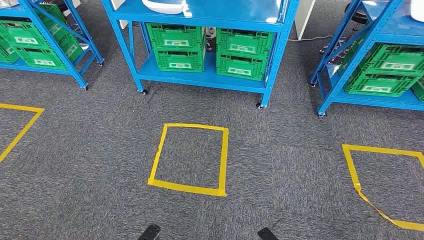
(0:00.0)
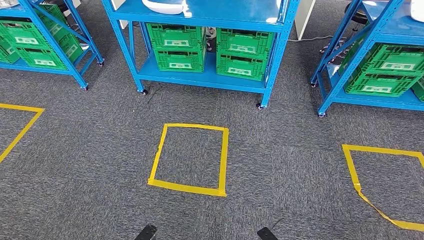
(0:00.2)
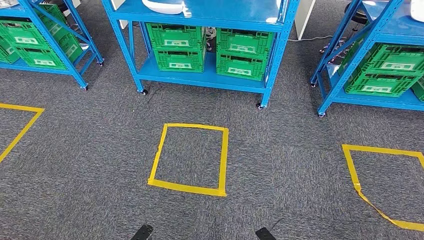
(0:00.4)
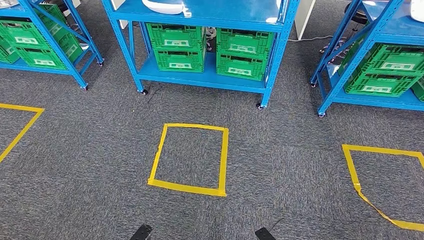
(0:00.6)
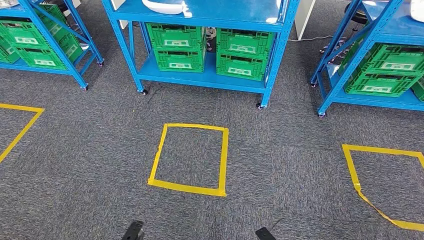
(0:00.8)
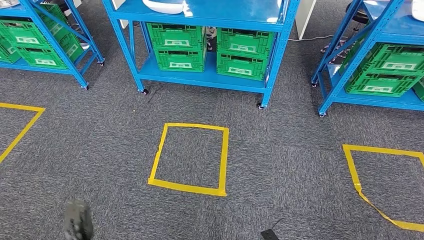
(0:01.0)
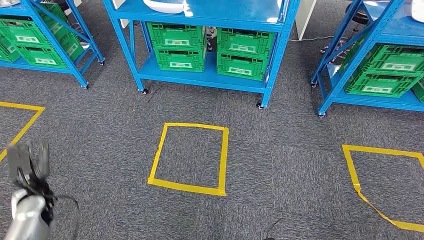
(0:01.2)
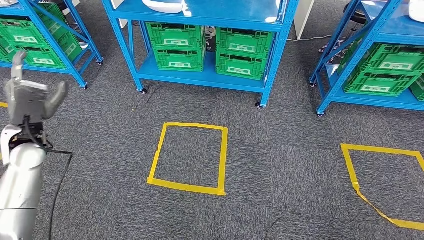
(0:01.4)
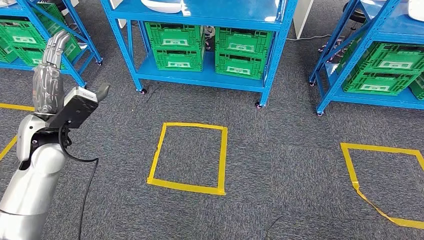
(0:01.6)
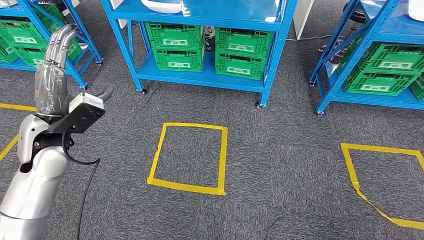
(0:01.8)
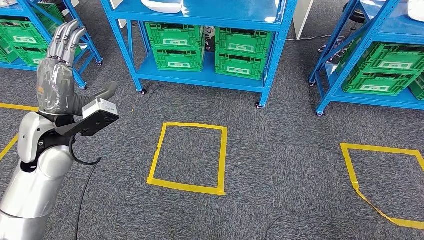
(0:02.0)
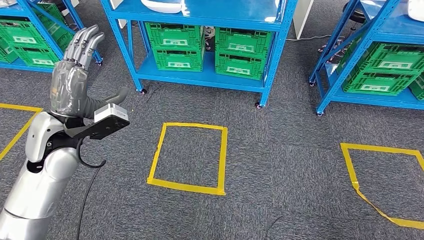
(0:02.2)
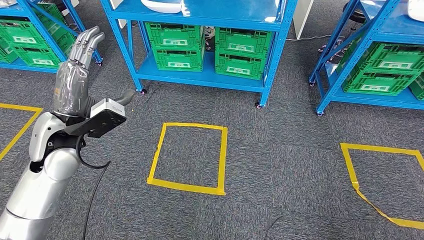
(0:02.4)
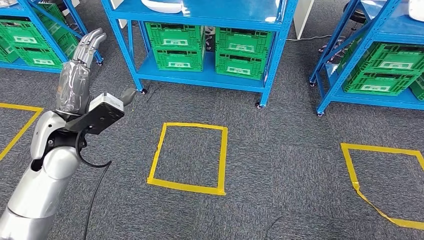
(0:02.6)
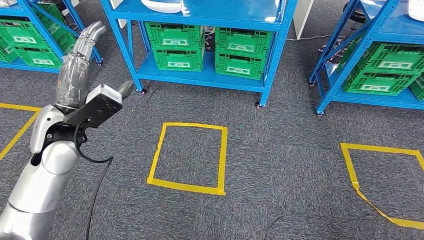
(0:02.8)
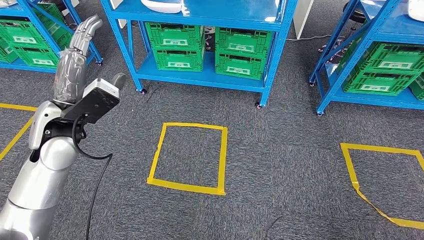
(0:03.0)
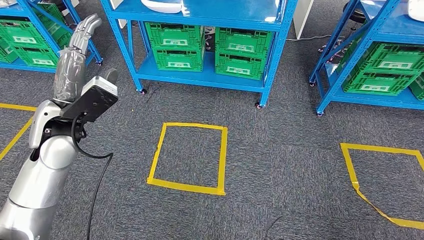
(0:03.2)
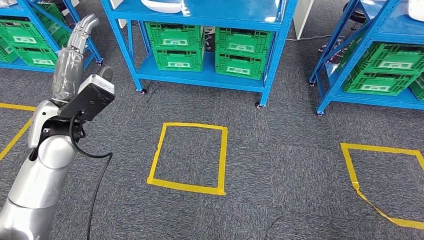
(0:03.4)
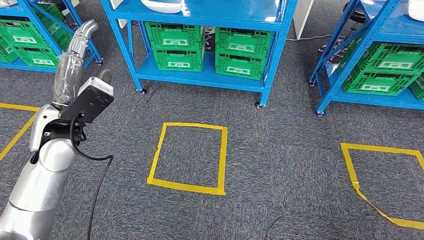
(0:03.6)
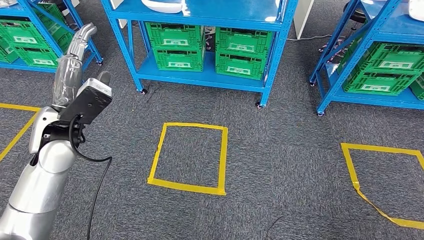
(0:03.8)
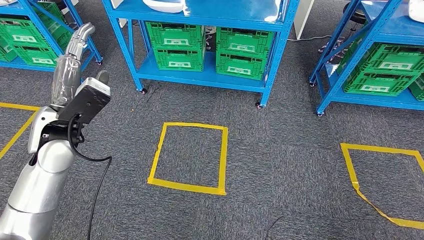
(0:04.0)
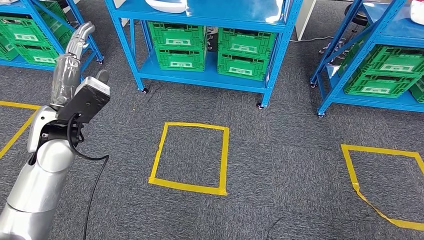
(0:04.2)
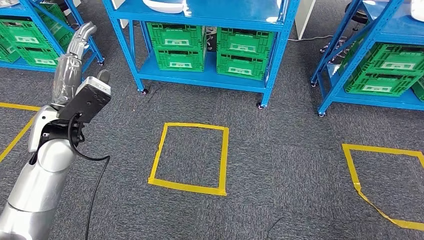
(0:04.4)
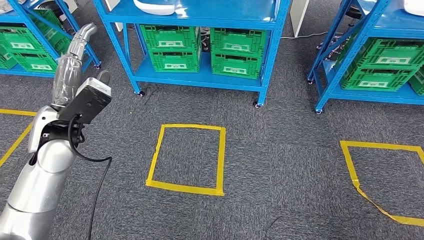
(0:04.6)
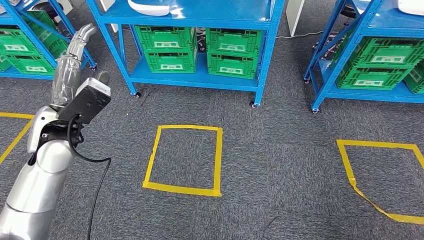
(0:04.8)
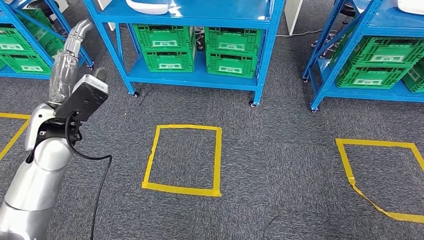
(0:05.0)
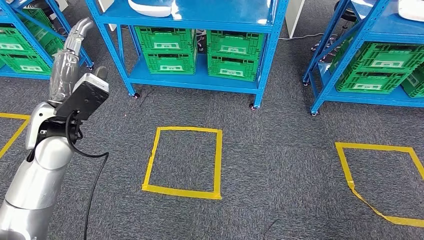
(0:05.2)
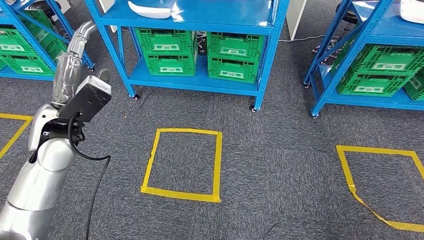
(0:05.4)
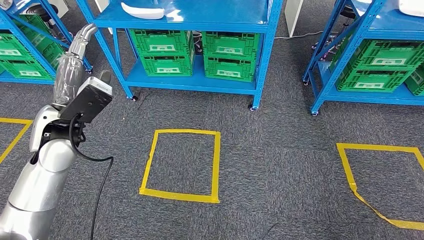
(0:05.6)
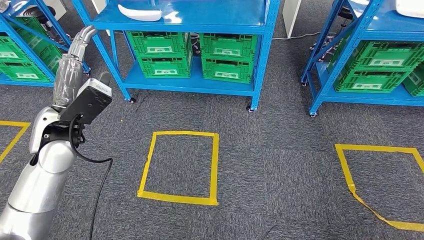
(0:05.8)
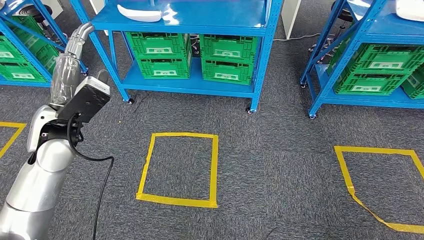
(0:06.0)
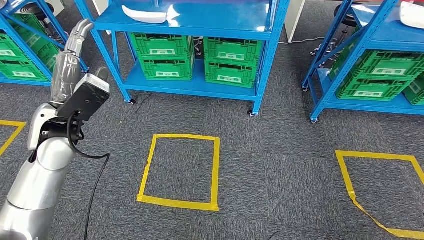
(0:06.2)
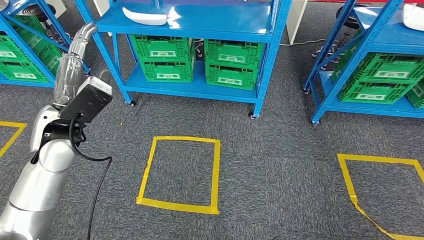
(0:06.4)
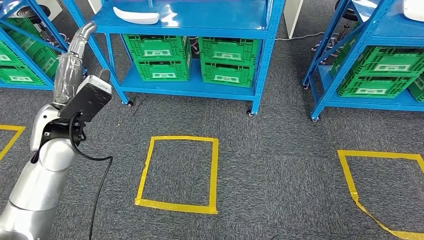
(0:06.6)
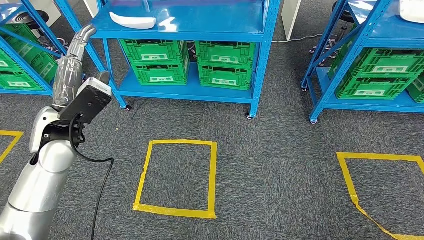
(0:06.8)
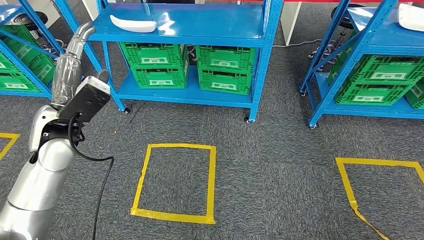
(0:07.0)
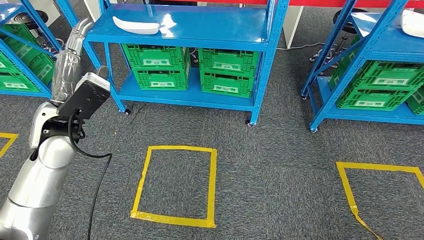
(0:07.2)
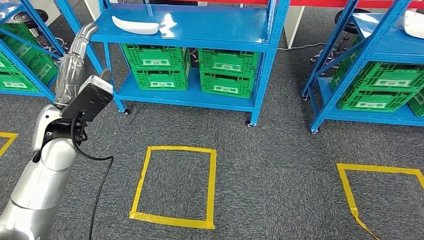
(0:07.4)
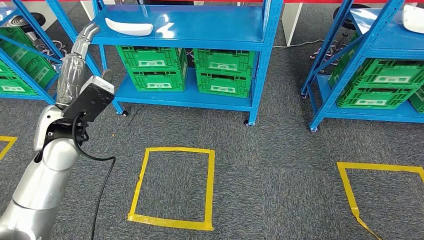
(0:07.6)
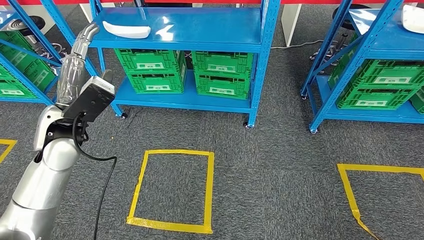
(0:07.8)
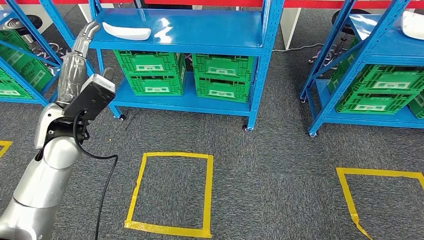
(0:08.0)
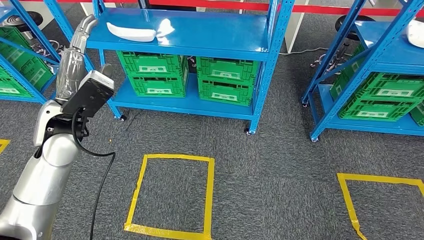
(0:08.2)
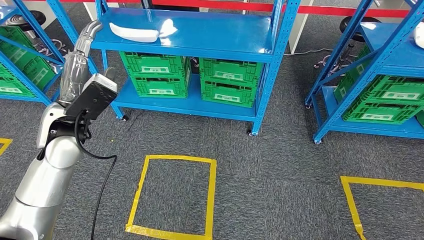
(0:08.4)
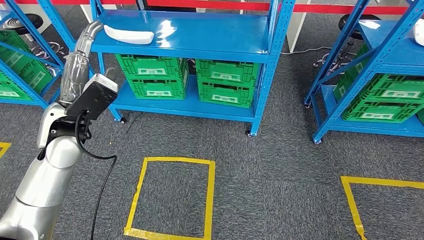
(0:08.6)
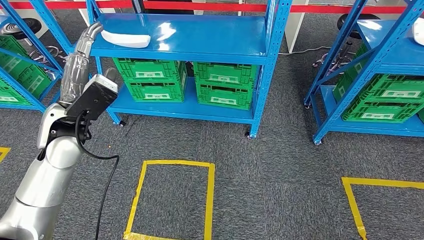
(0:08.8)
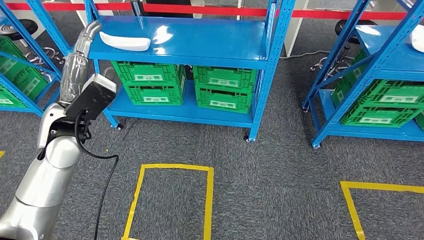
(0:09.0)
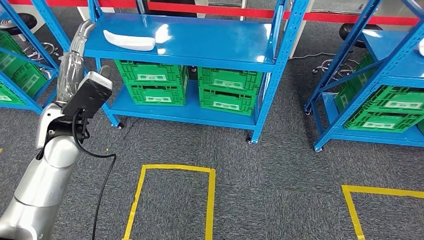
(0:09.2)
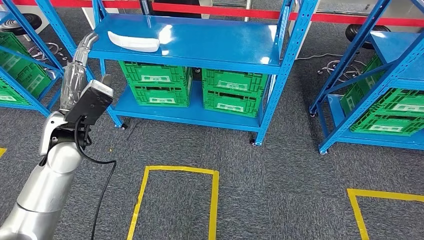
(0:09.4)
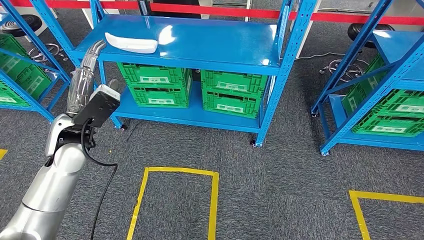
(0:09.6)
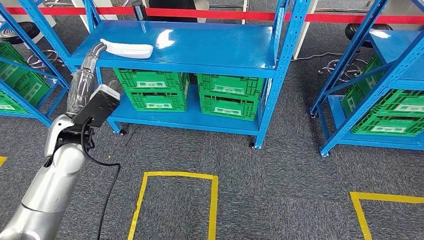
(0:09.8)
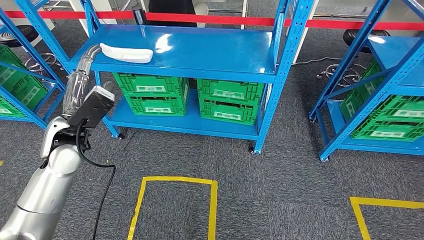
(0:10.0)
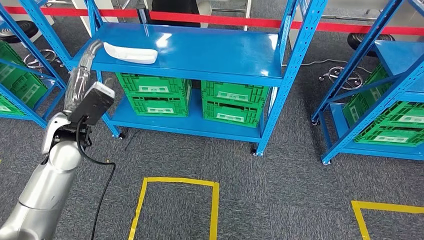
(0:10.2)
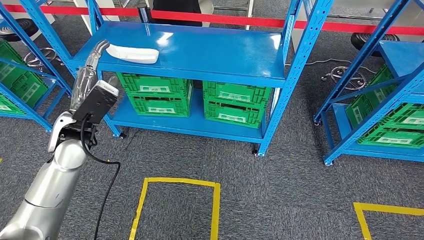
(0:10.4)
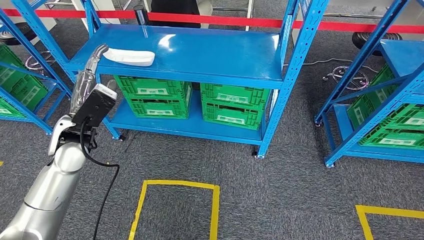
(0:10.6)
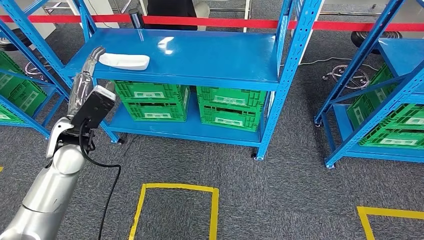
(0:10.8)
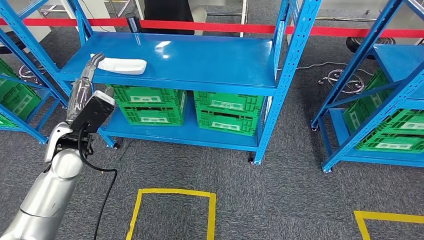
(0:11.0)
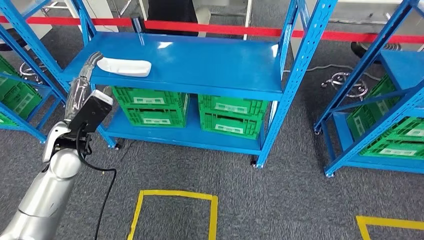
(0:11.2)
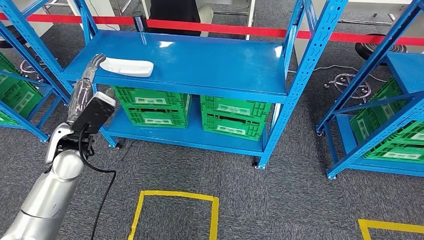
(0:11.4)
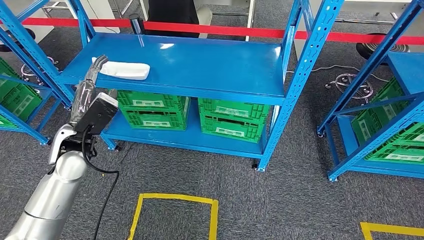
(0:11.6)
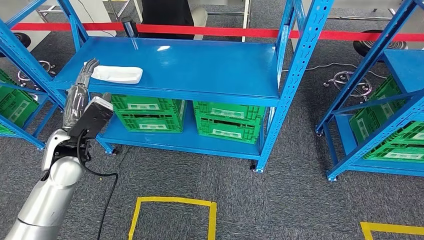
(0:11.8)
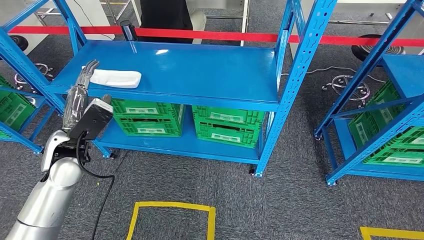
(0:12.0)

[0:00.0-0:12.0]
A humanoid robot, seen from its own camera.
0:01.6 to 0:03.0: The left hand shifts about 5 cm to the right.
0:03.0 to 0:04.4: There are only small adjustments of the hands.

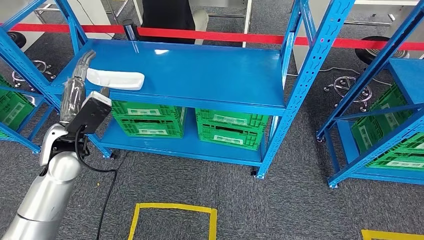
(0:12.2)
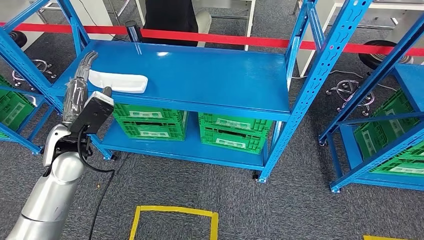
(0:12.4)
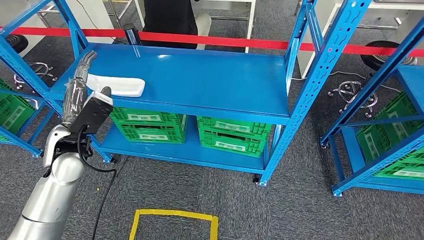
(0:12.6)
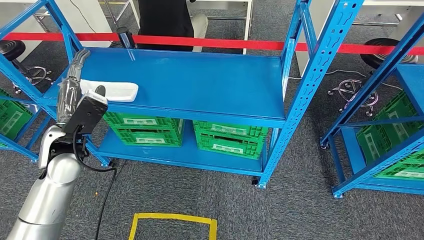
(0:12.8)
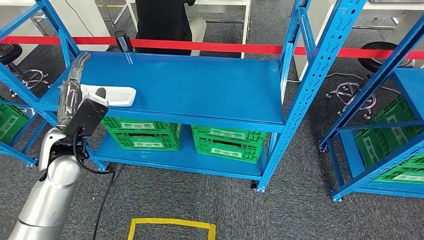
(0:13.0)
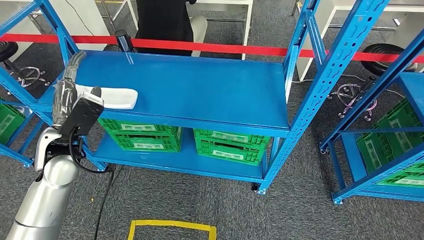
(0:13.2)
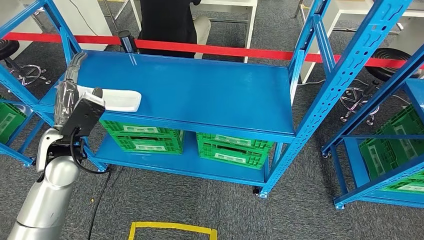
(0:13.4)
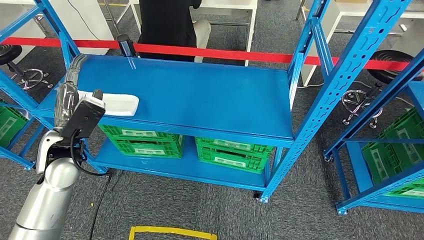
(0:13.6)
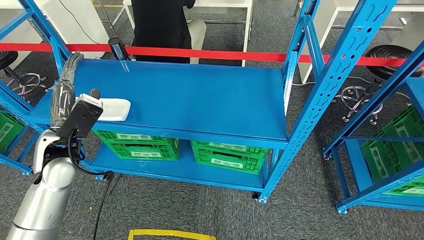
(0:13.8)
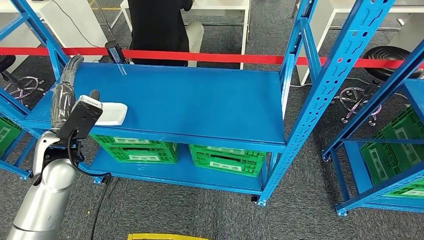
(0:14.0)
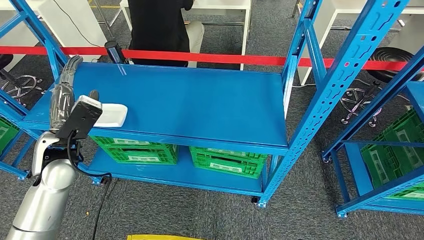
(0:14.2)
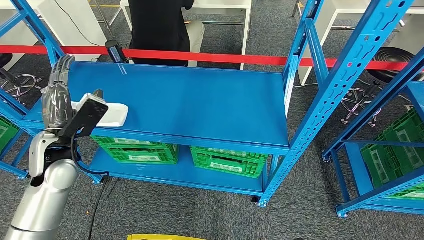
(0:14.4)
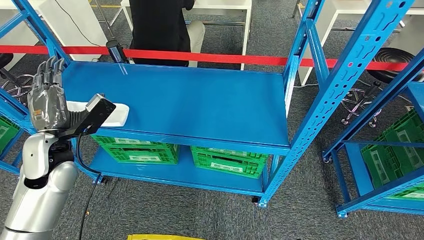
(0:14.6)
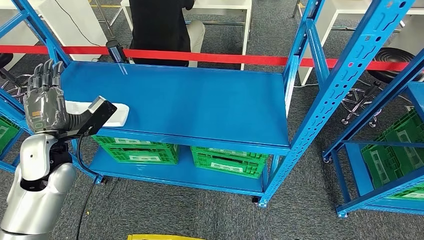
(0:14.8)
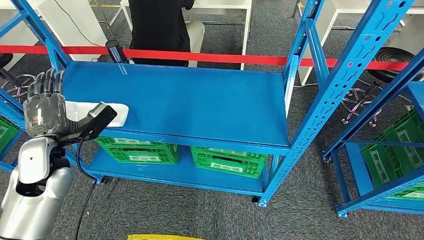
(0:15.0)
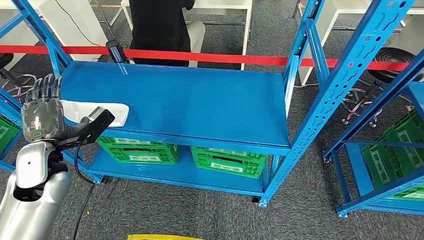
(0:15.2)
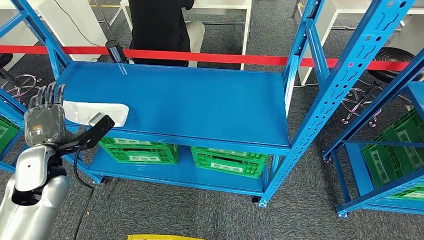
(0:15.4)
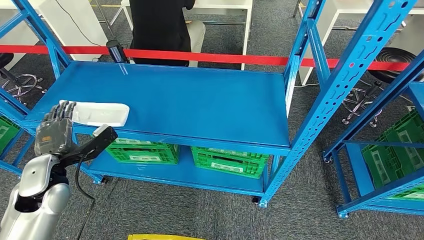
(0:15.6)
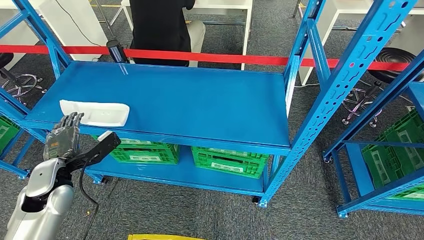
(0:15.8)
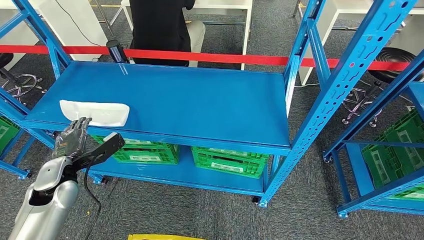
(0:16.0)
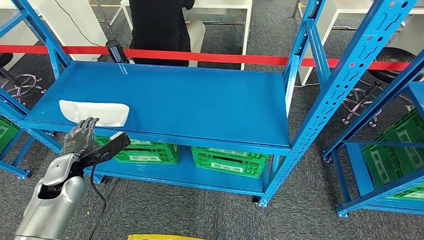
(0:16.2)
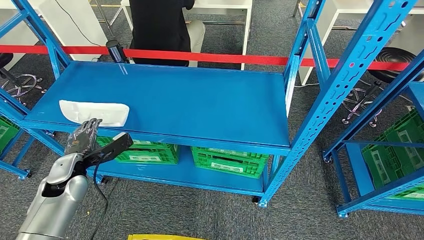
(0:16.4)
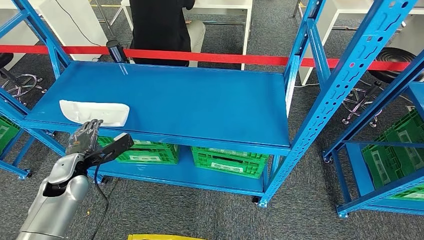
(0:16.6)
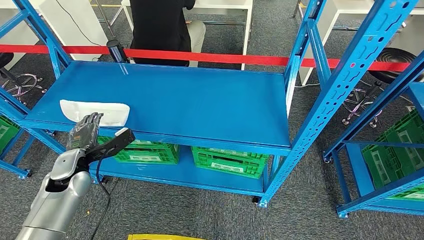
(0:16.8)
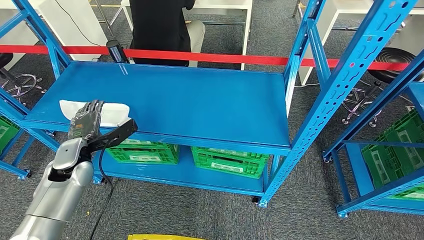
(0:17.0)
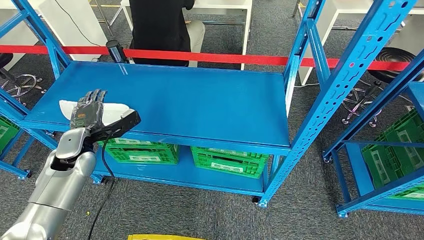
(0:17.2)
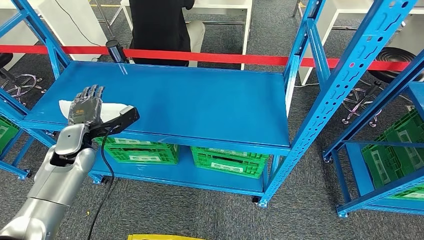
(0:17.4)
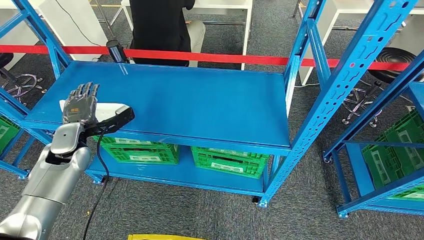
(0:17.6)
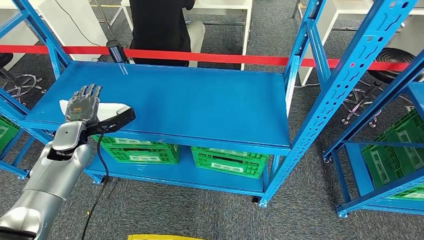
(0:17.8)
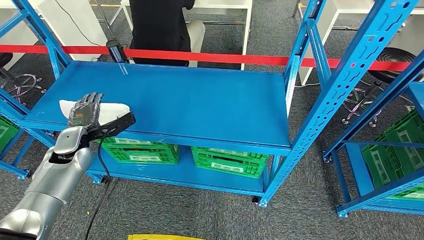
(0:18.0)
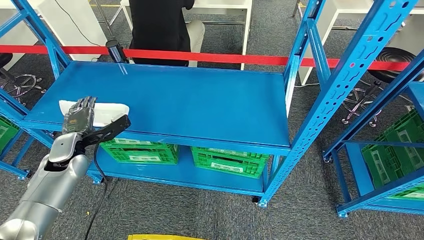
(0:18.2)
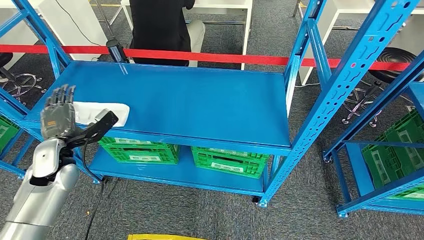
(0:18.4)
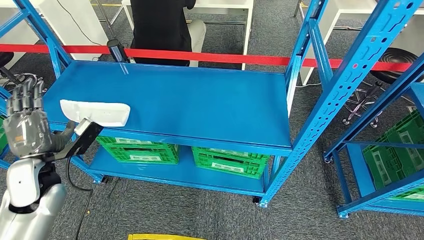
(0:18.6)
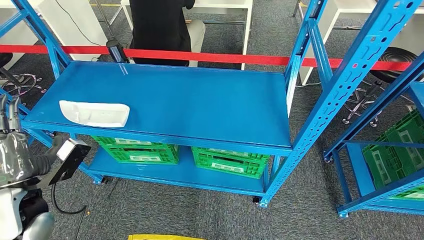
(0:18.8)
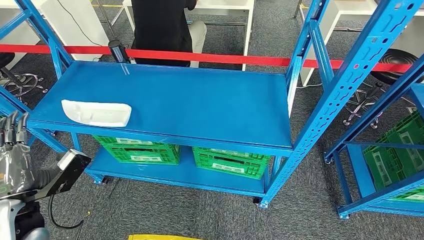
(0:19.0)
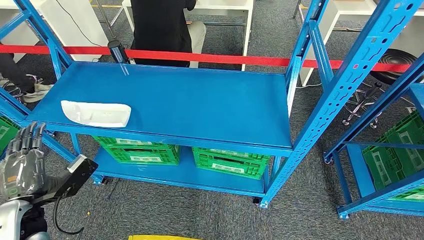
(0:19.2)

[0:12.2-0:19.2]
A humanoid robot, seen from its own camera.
0:15.0 to 0:16.4: The left hand heads downward, covering some 10 cm.
0:16.4 to 0:17.8: The left hand shifts some 5 cm forward.
0:17.8 to 0:19.2: The left hand is displaced backward by roughly 20 cm; the right hand moves approximately 5 cm.
